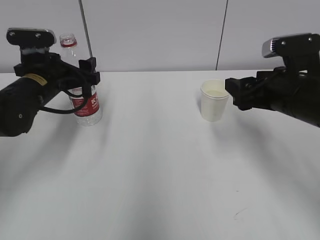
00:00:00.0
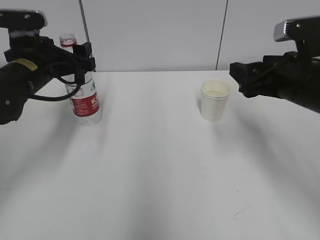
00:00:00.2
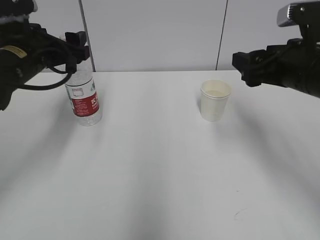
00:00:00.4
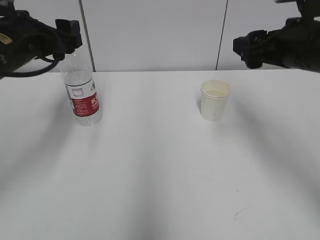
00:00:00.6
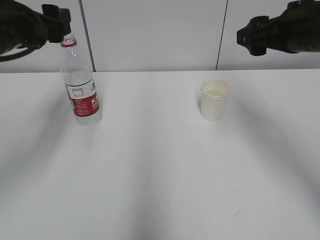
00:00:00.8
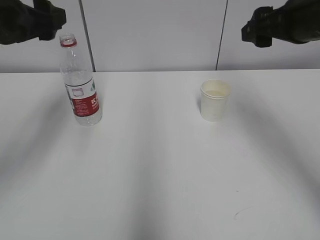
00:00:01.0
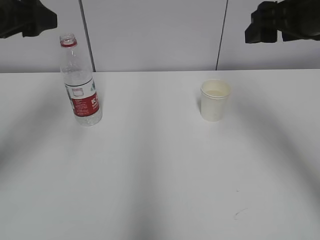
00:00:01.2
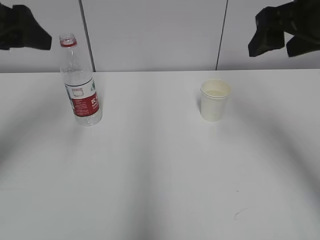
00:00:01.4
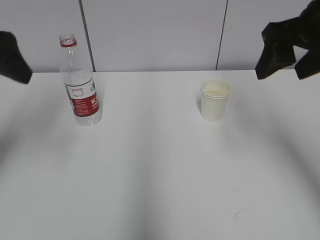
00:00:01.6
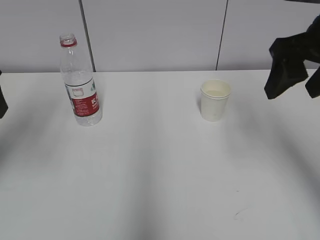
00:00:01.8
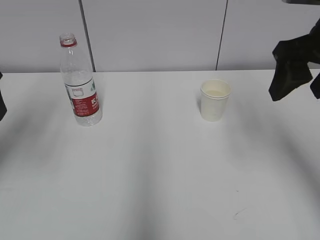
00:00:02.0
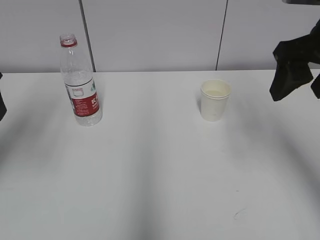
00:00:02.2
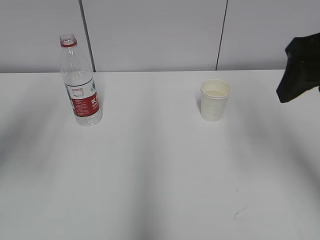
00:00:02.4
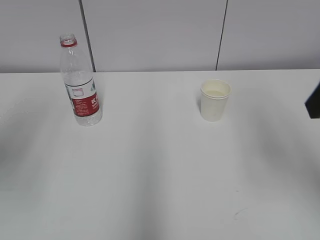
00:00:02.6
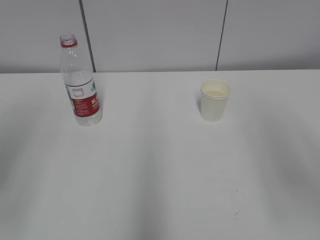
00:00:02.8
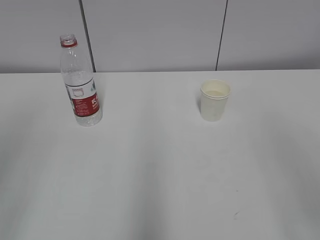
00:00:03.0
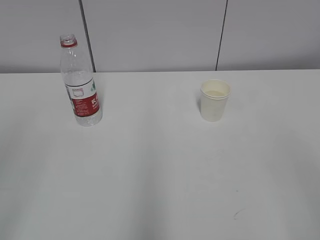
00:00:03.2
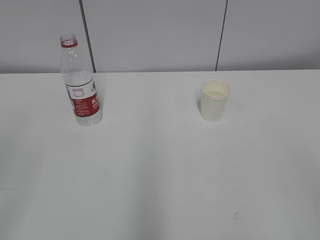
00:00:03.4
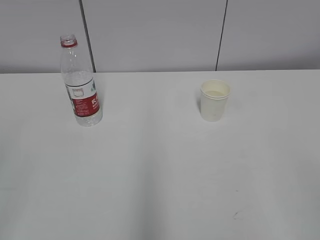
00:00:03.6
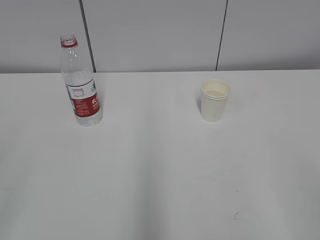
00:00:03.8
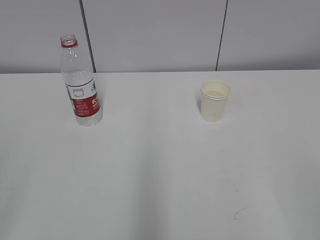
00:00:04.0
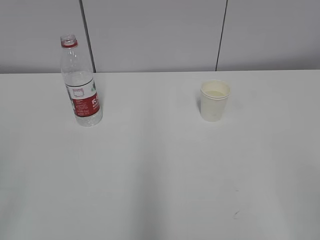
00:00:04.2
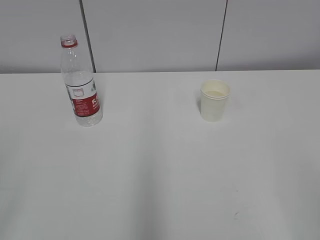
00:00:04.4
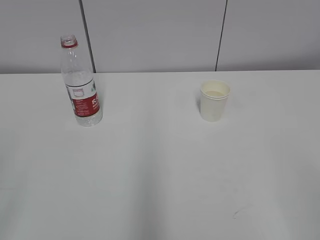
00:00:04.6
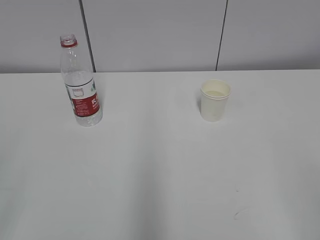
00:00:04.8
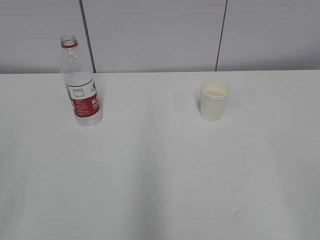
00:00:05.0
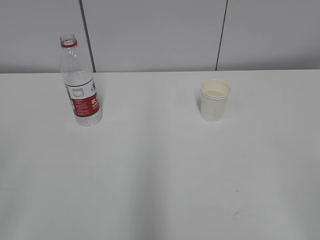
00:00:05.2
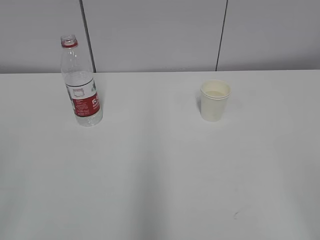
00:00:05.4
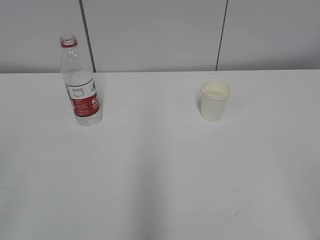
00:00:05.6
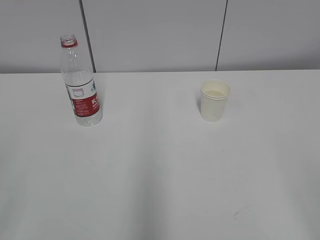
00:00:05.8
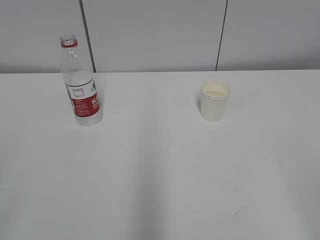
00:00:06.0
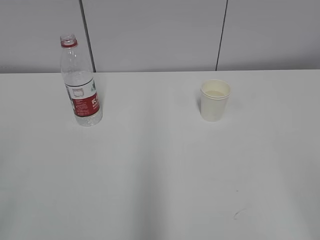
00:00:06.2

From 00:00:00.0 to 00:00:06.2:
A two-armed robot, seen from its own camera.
From 00:00:00.0 to 00:00:01.6: The left gripper moves upward and backward, about 20 cm. The right gripper is displaced upward by some 15 cm.
From 00:00:01.6 to 00:00:03.2: The two grippers go about 25 cm backward.
